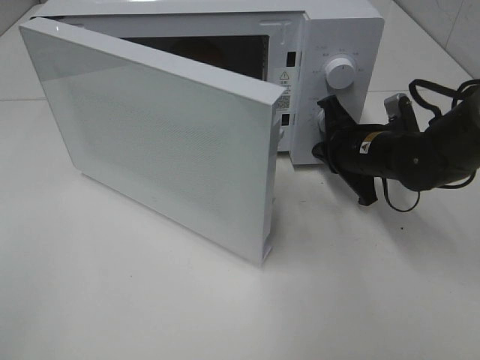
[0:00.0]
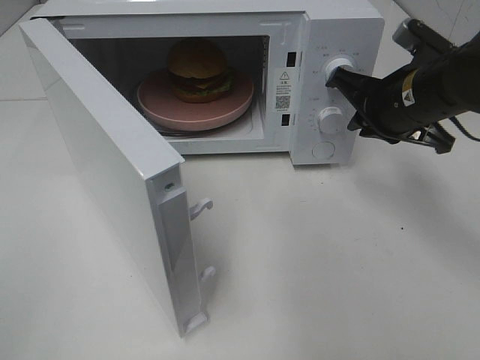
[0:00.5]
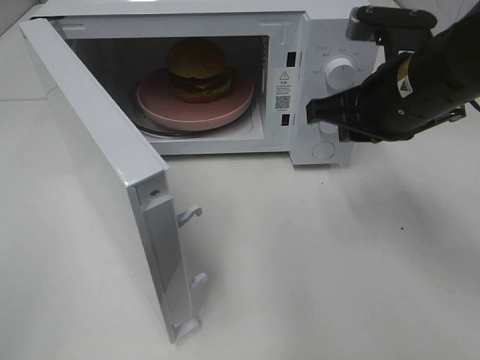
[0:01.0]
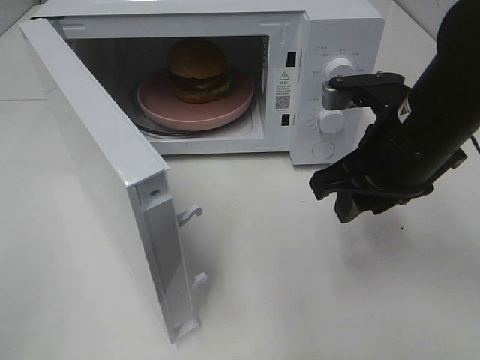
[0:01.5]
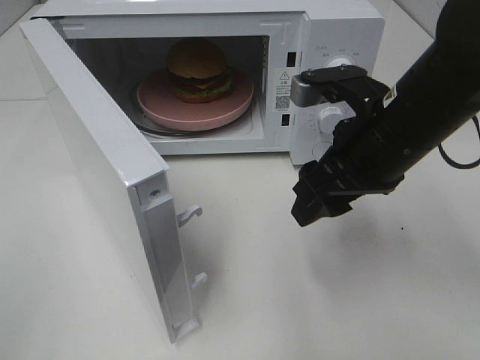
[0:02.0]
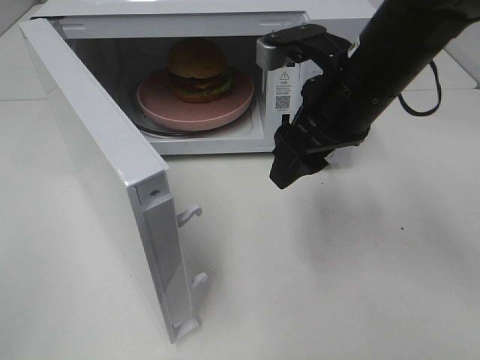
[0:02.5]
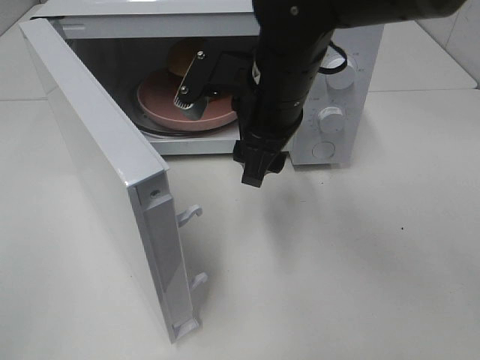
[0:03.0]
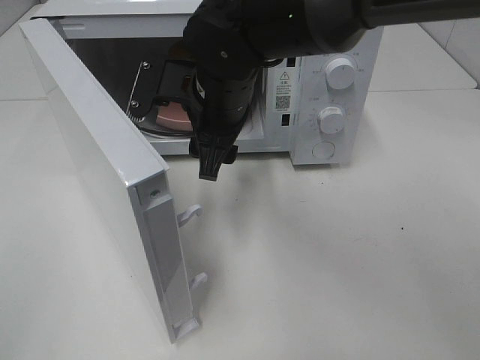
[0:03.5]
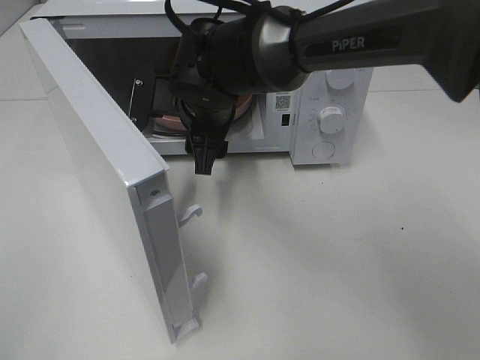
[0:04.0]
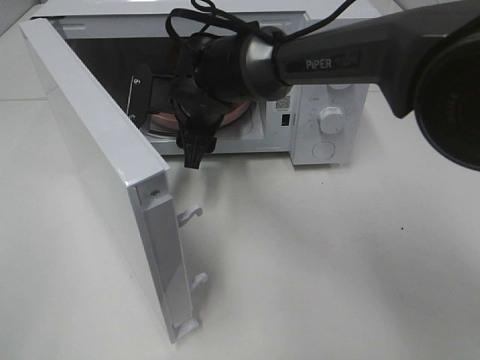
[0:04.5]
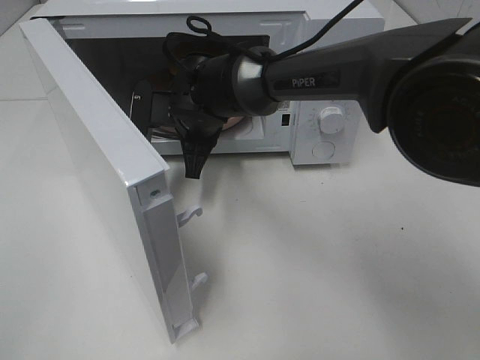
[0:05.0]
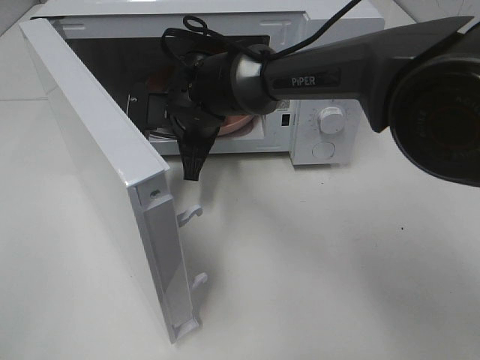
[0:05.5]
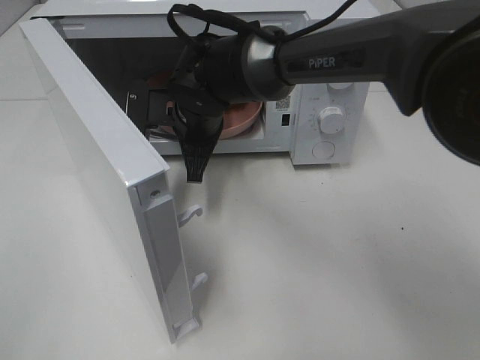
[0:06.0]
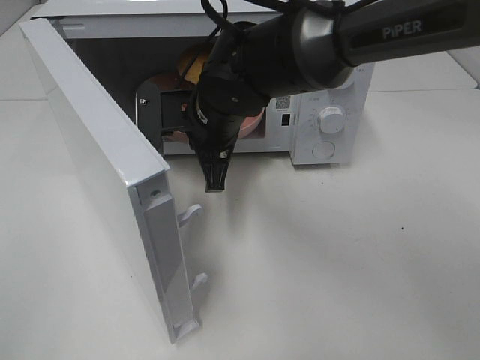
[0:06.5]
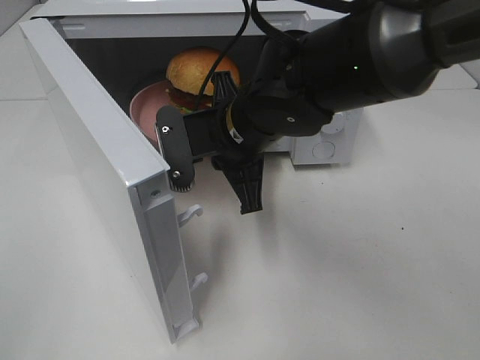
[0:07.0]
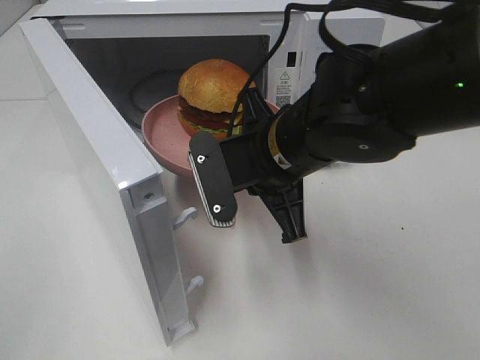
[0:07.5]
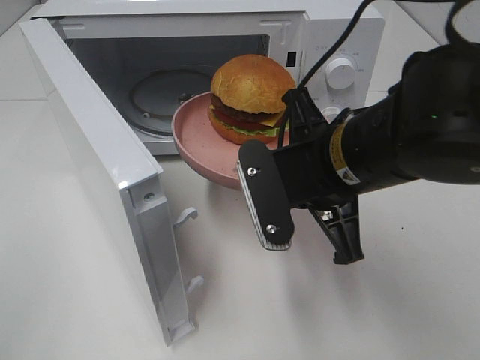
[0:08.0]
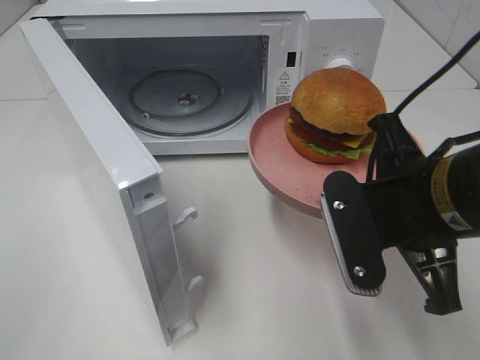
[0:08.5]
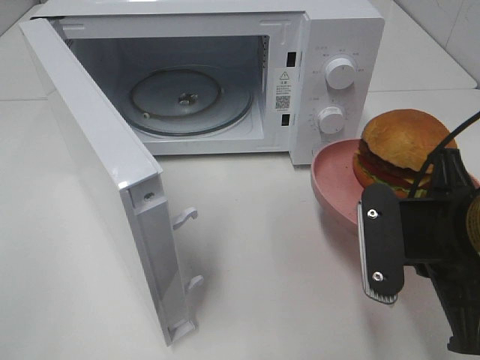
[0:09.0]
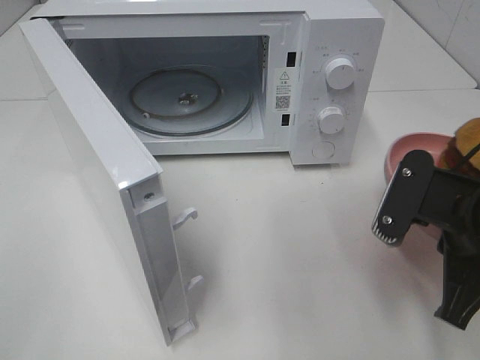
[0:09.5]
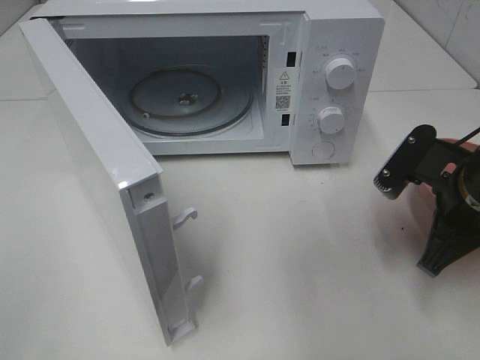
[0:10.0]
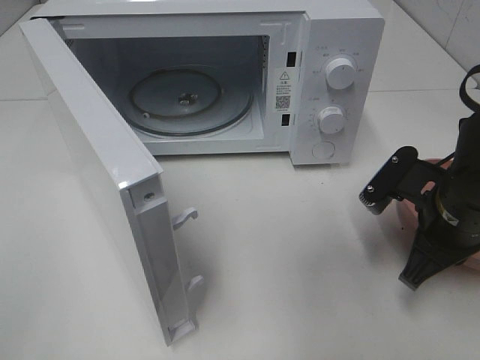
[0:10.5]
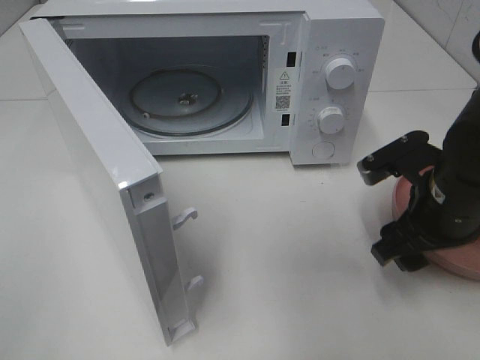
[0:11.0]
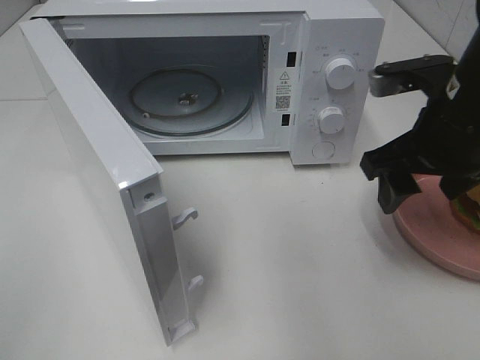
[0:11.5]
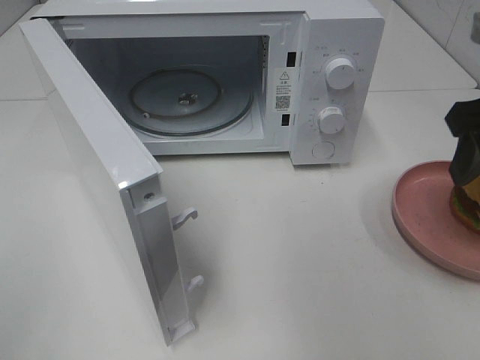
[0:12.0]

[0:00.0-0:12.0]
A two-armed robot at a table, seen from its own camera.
Task of the whole recording: Heat the burger.
Step, 0.5 to 5.0 s: Right hand: grab the plate with the hamburger.
Step, 5.5 to 10.5 s: Right hand: place the plate on the table.
0.0 to 2.0 s: The right gripper heads upward and backward, covering approximately 15 cm, and opens.
2.0 to 4.0 s: The right gripper shifts roughly 20 cm to the left and forward.
4.0 to 6.0 s: The right gripper closes up.
6.0 to 8.0 s: The right gripper shifts about 20 cm backward and to the right.
8.0 to 10.0 s: The right gripper heads to the right, covering approximately 15 cm.
10.0 to 12.0 s: The right gripper goes some 15 cm upward, and opens.

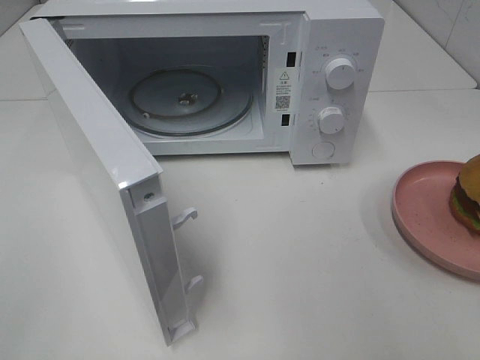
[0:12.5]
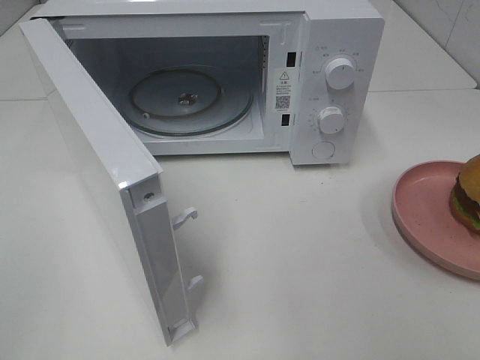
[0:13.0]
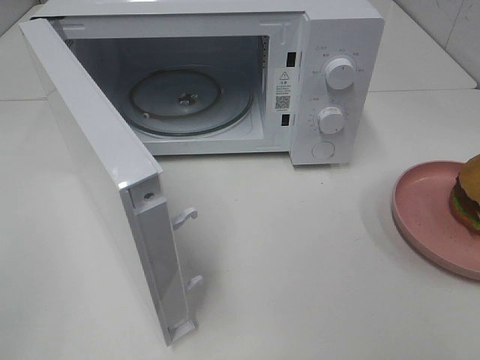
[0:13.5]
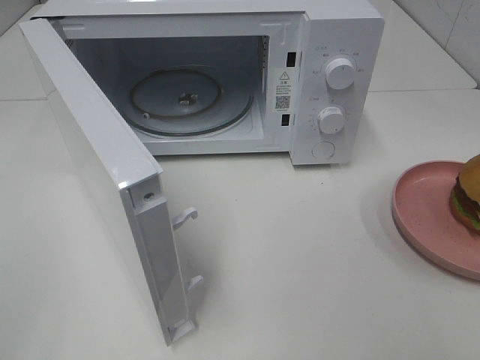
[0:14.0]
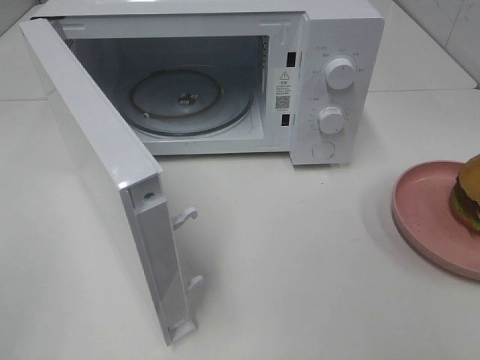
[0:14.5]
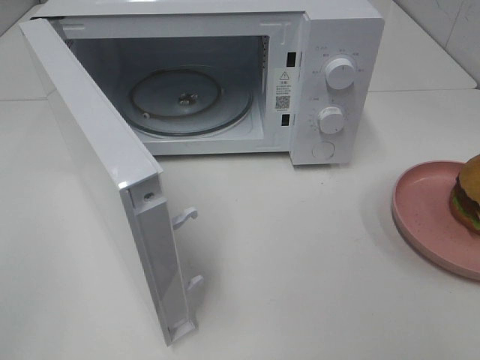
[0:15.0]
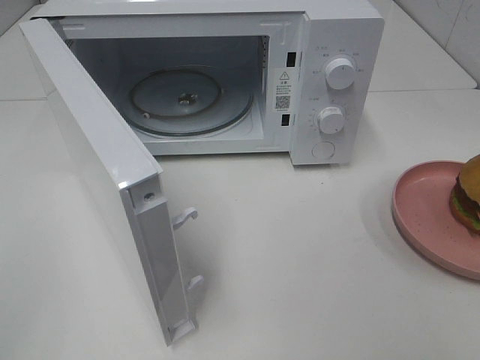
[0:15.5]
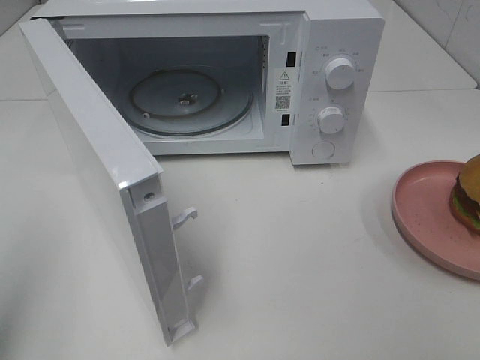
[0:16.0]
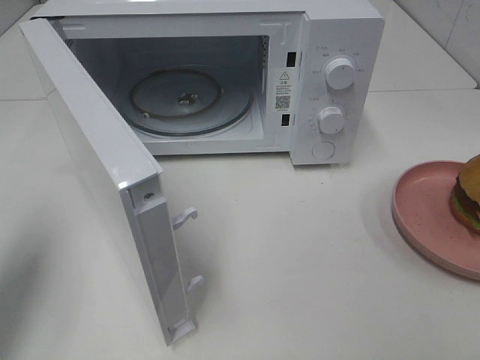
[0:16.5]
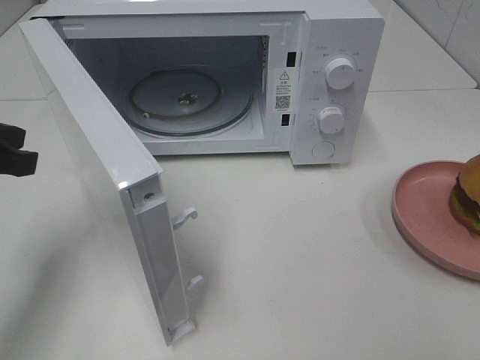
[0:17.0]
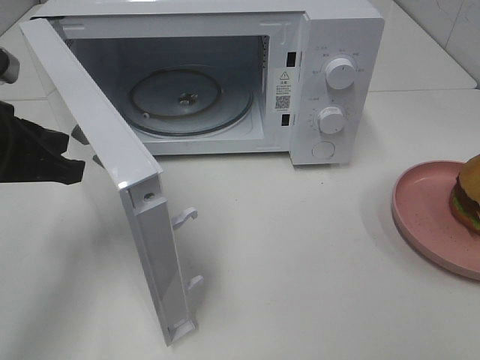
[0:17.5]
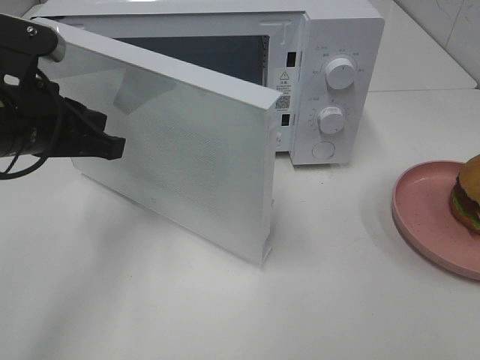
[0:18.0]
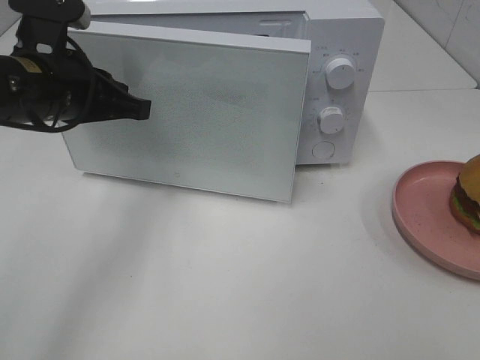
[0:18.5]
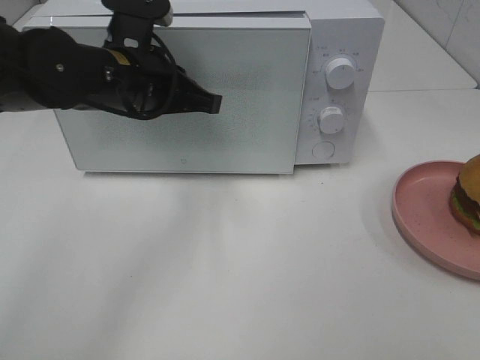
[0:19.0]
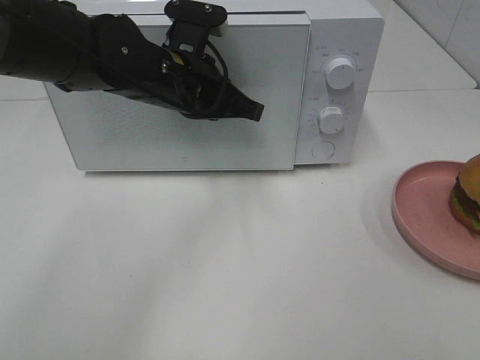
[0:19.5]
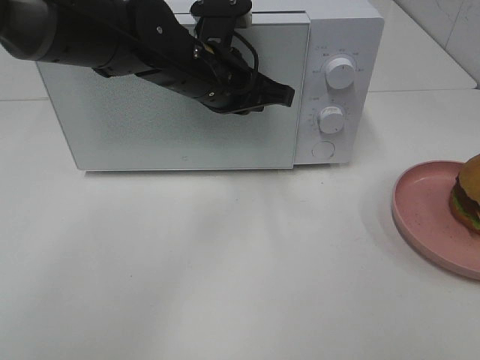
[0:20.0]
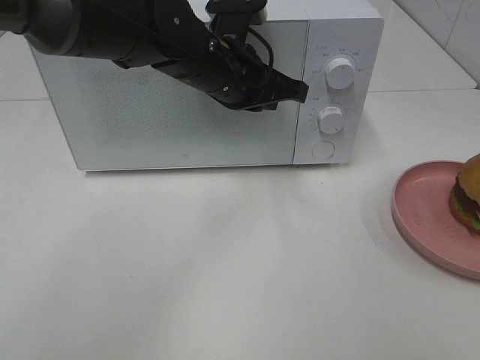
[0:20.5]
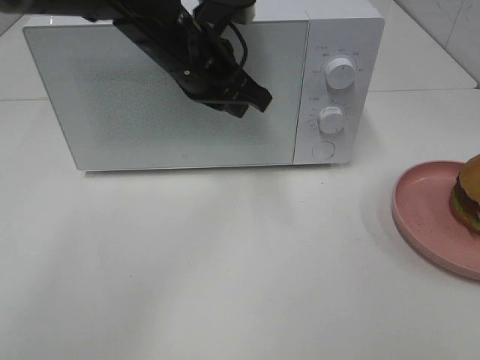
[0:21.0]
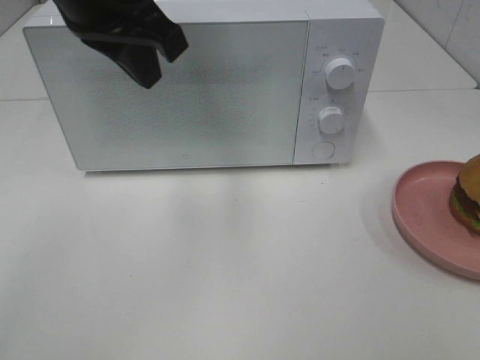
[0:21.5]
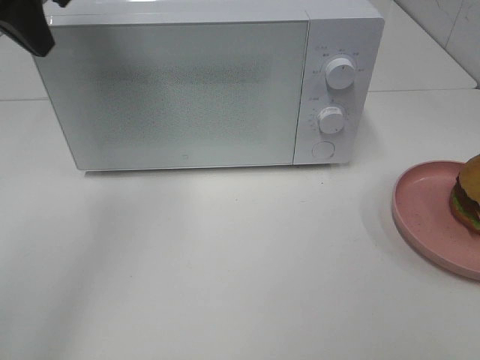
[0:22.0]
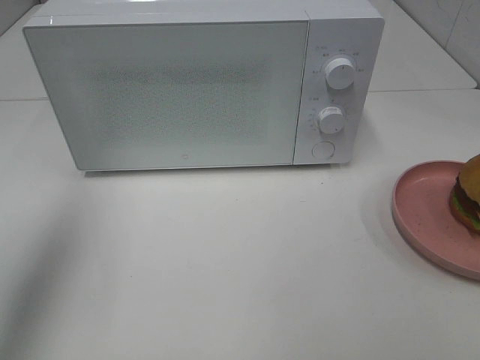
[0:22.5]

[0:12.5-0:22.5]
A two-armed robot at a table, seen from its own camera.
Task of the whole recording: Heat the burger.
Step, 12.5 to 20.5 s: Left hand: close the microwave door.
14.5 to 16.5 s: The left gripper moves forward, roughly 20 cm.
16.5 to 18.5 s: The left gripper shifts roughly 20 cm to the right and forward.
18.5 to 20.5 s: The left gripper goes about 15 cm to the right and forward.
20.5 to 22.5 s: The left gripper shifts roughly 35 cm to the left, backward and upward.

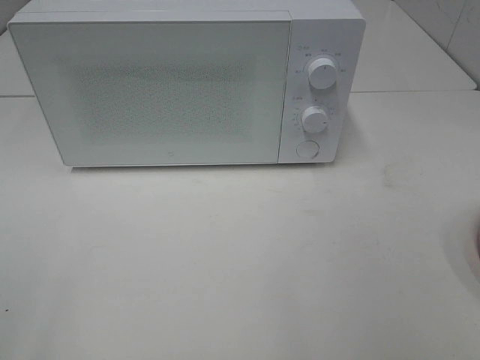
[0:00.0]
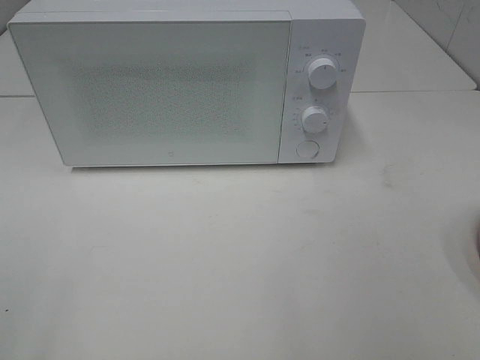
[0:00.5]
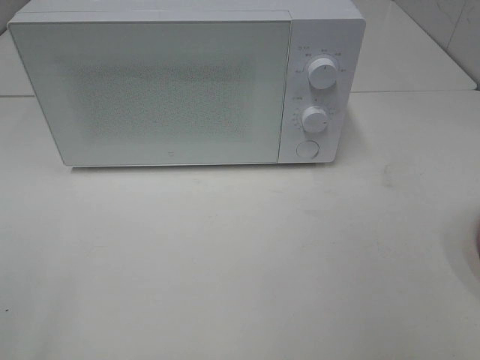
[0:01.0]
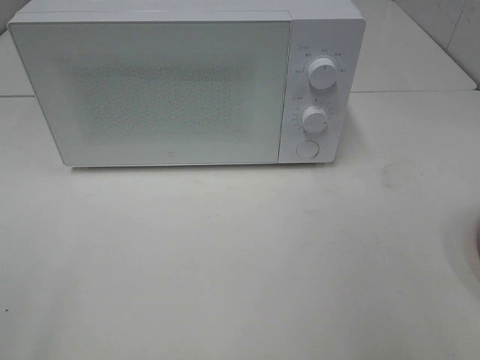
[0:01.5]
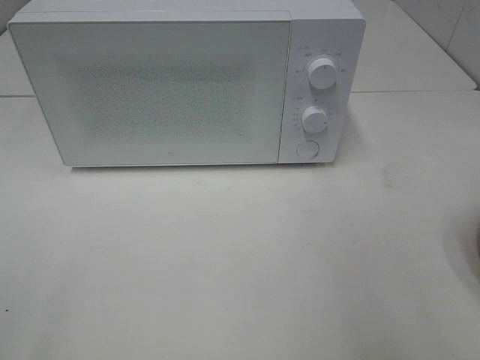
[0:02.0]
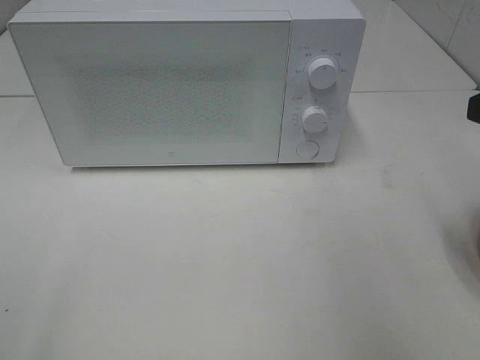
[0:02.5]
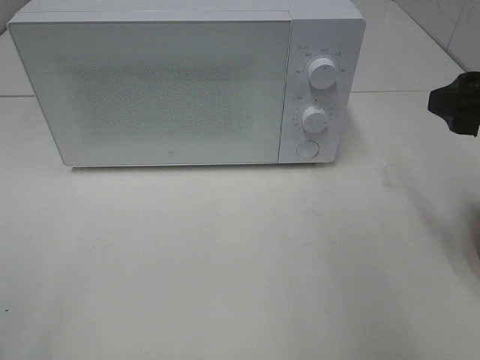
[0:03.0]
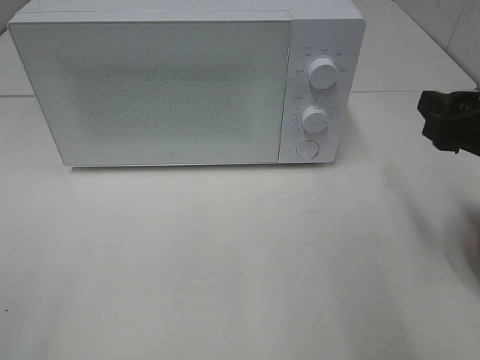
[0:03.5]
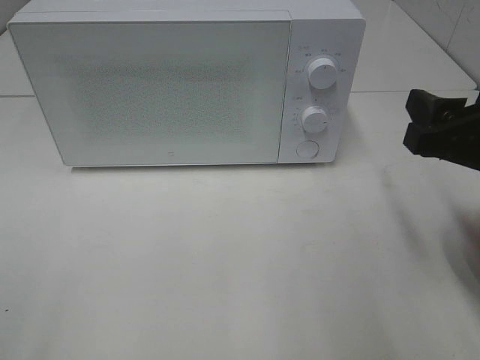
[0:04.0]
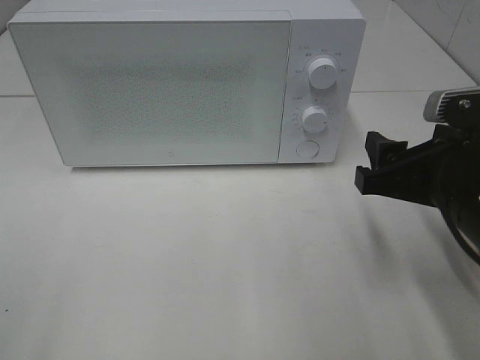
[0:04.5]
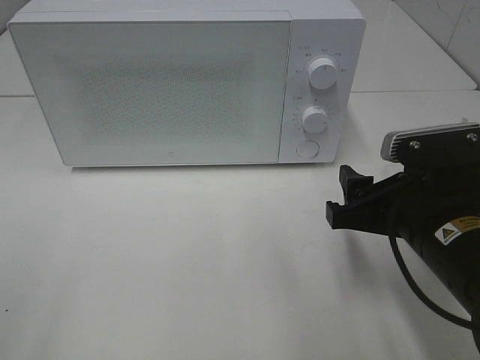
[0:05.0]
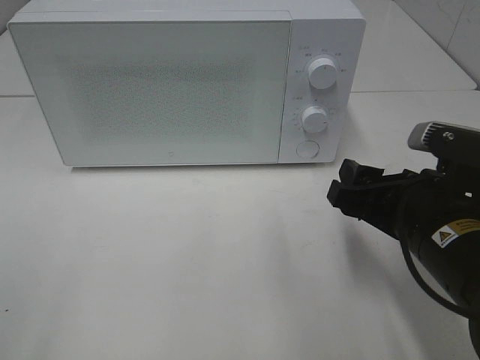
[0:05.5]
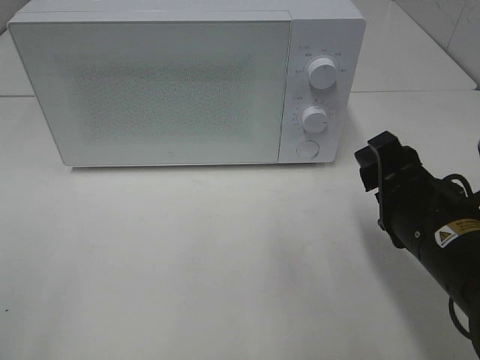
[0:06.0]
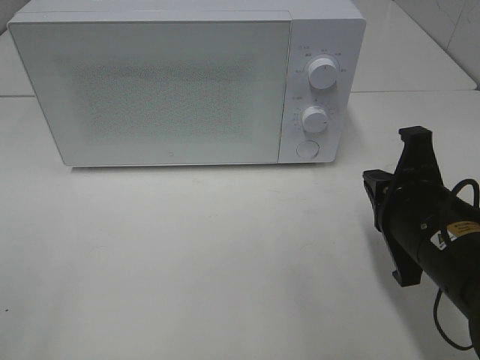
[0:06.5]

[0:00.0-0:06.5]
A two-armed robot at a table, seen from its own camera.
Task of the whole recording: Heat the burger.
2.0 to 4.5 s: The right gripper moves downward, to the left and forward, roughly 15 cm.
4.5 to 6.5 s: The right gripper closes up.
